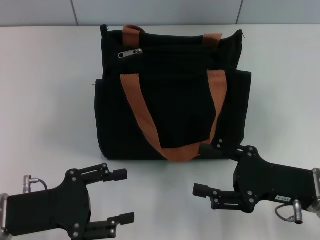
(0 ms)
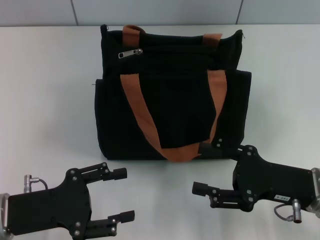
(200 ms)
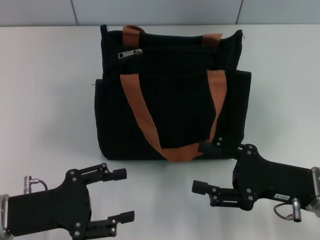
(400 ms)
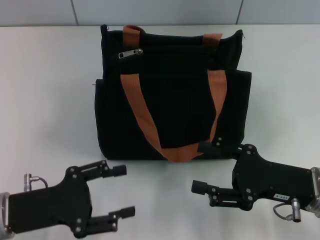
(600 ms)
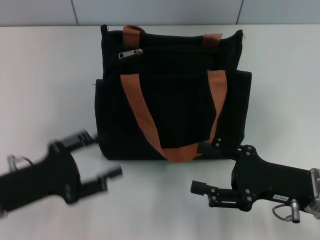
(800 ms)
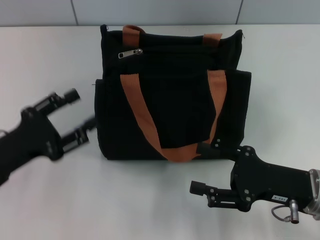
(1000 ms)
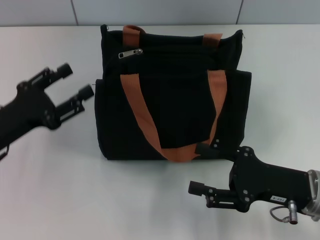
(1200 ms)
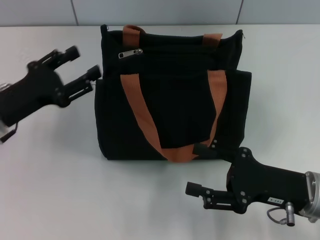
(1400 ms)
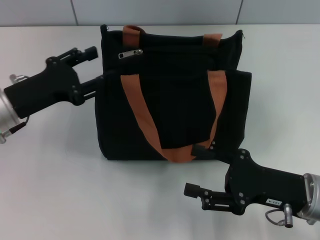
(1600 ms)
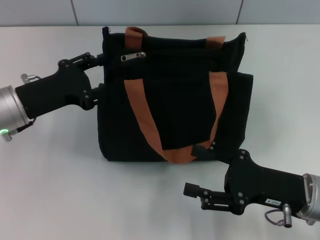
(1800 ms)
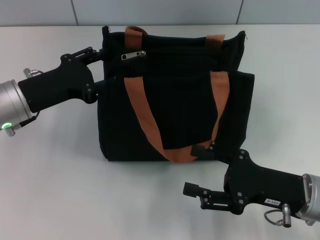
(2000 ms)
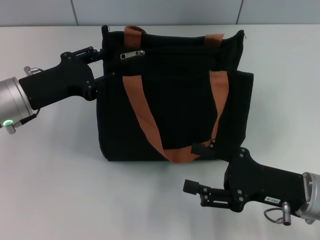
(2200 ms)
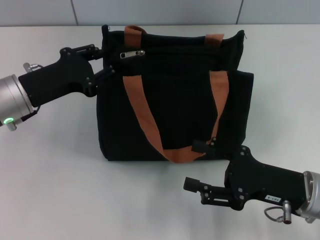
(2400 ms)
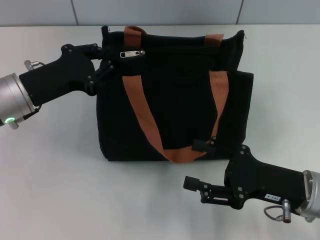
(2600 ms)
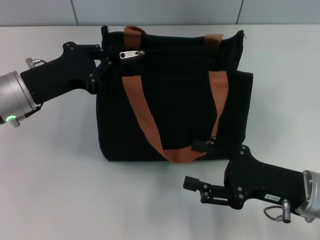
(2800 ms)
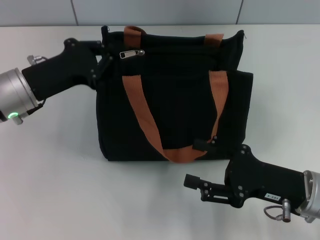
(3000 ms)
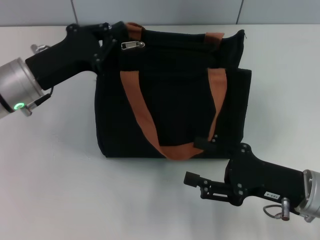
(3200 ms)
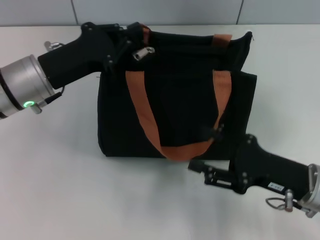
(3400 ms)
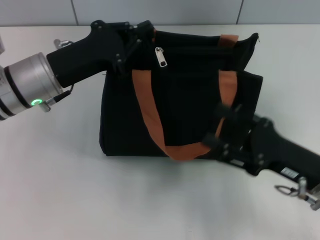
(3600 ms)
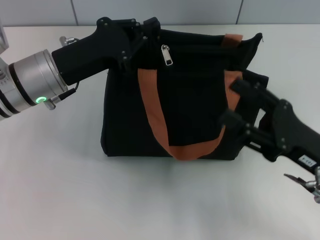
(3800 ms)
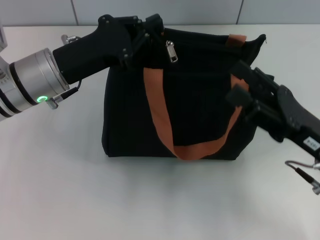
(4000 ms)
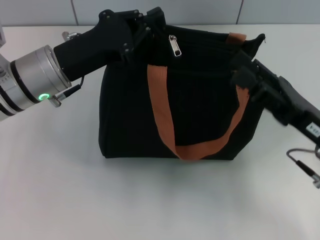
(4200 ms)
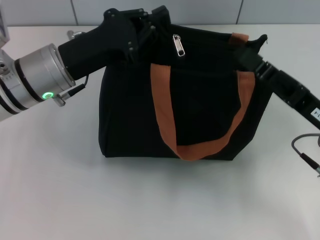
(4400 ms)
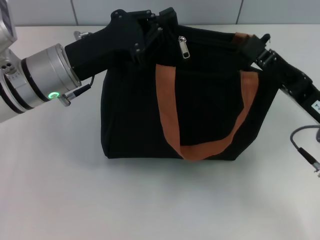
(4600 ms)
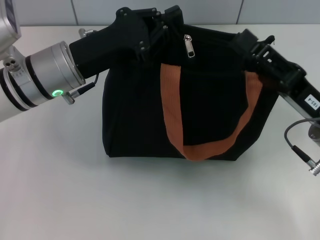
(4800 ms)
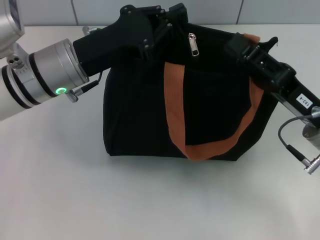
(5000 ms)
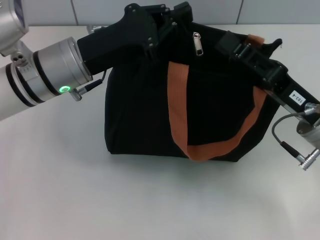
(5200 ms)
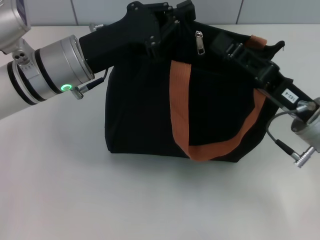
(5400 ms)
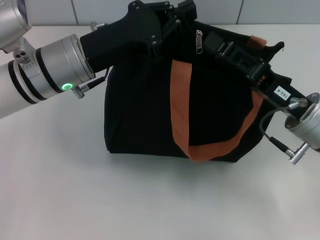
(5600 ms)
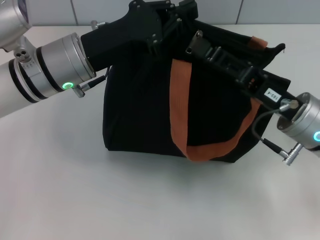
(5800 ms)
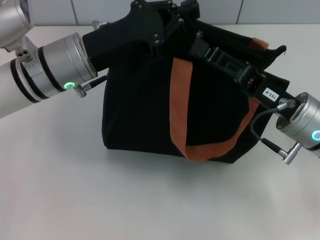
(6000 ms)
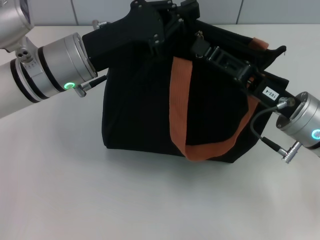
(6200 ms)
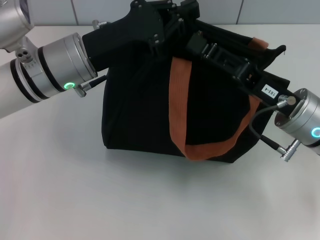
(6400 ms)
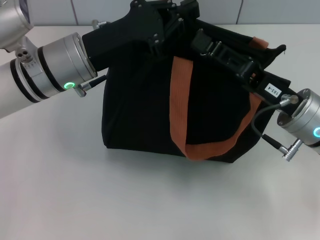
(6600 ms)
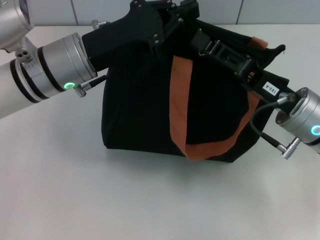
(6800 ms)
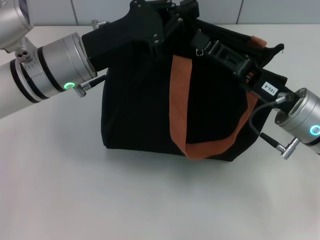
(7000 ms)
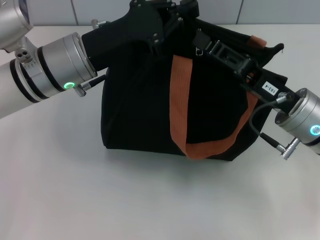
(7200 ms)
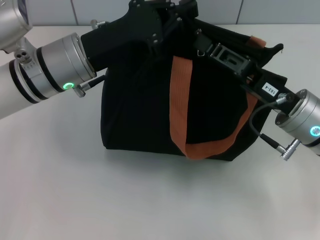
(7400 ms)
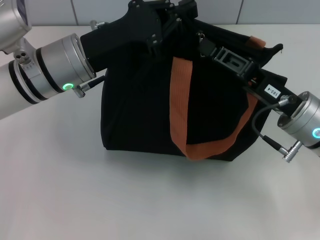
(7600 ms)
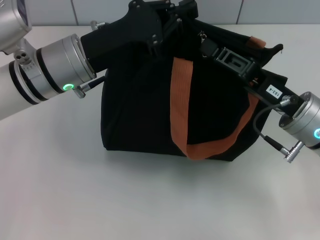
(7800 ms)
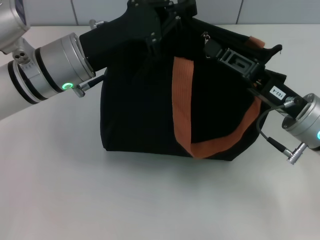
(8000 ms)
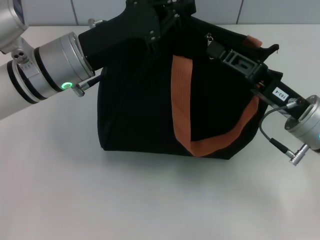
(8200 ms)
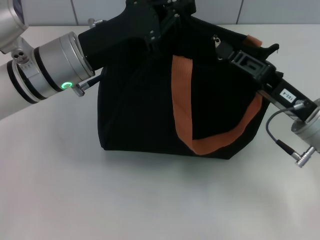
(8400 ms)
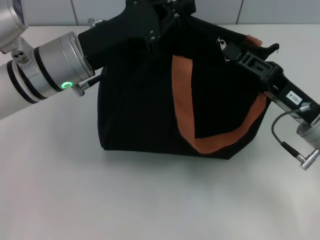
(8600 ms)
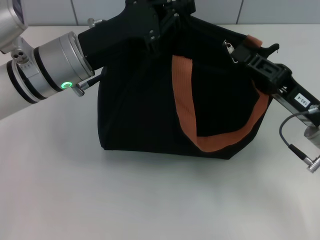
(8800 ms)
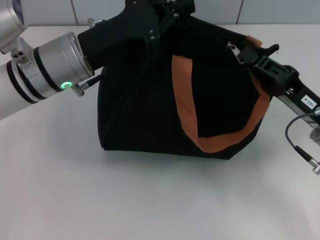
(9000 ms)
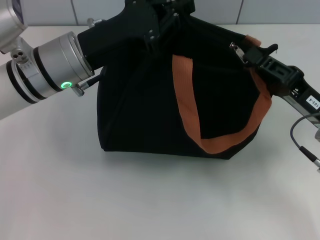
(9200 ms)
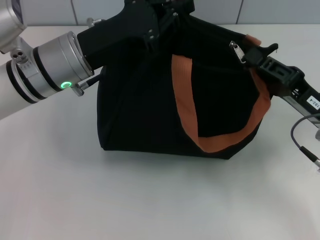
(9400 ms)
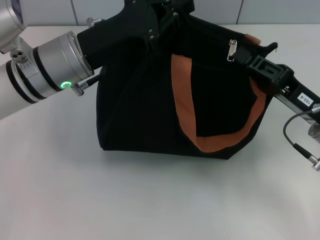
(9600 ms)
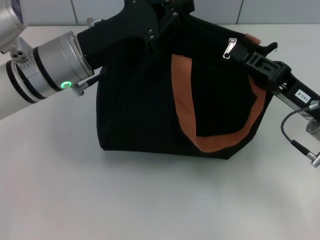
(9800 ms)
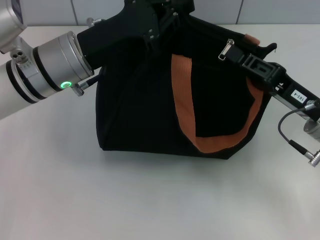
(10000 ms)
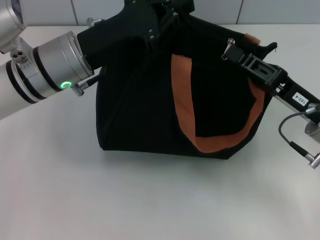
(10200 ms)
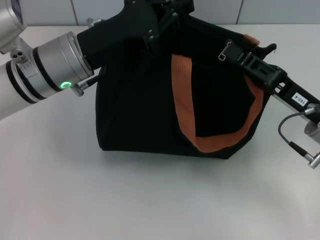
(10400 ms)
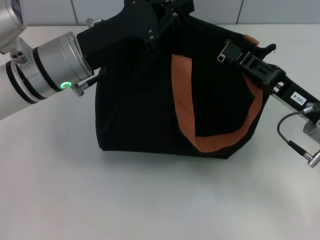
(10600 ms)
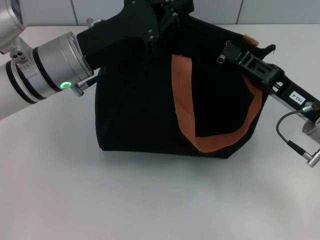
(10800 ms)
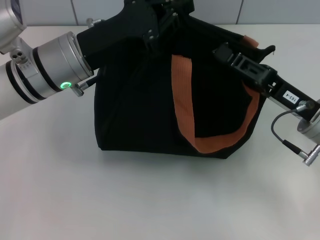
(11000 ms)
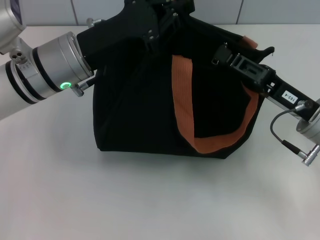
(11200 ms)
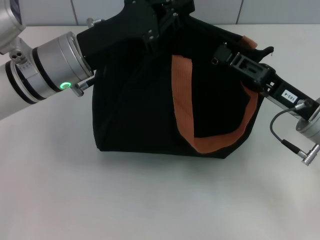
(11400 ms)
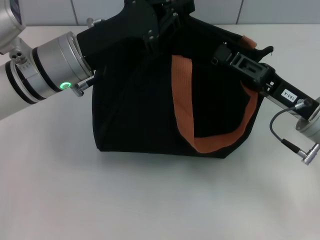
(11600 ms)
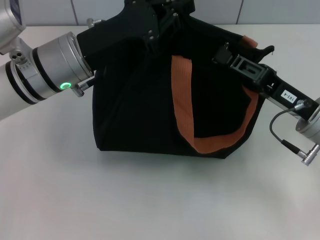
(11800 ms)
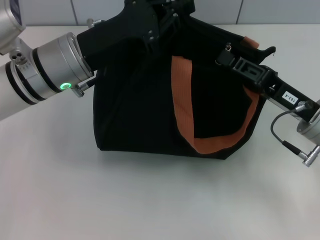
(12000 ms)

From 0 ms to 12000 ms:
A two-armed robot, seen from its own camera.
From 0 ms to 1600 ms: The left gripper moves forward, about 10 cm.
From 1600 ms to 3000 ms: The left gripper closes up.
From 3000 ms to 4400 ms: The left gripper moves to the right, roughly 5 cm, while the right gripper ends up some 5 cm from where it was.
From 4400 ms to 6000 ms: The right gripper shifts by some 5 cm, and closes.
From 6000 ms to 7600 ms: The right gripper closes up.
From 7600 ms to 10400 ms: The grippers make only small movements.
From 10400 ms to 12000 ms: The two grippers keep their place.

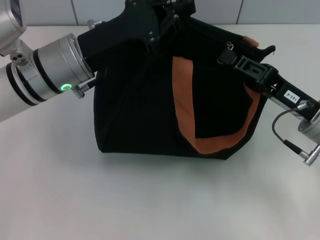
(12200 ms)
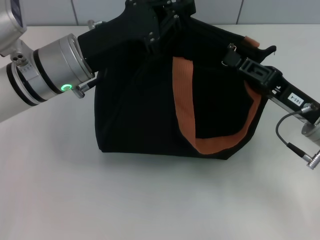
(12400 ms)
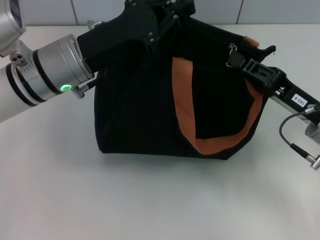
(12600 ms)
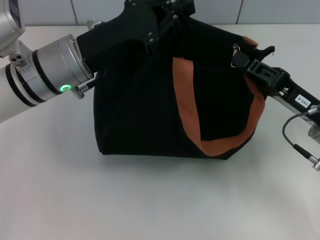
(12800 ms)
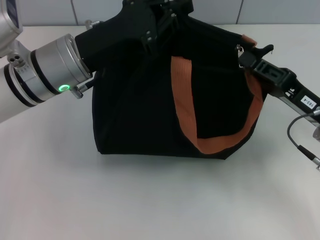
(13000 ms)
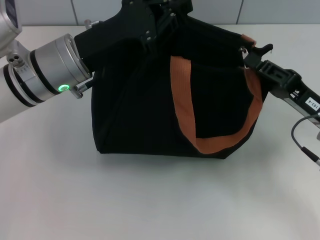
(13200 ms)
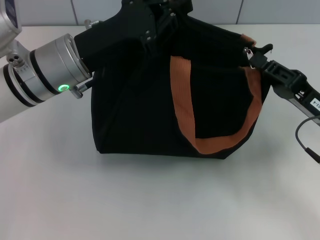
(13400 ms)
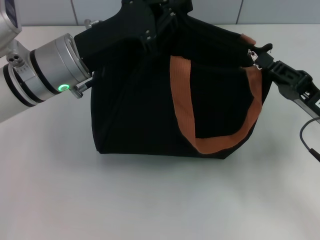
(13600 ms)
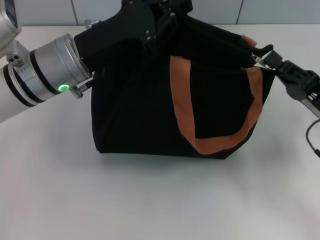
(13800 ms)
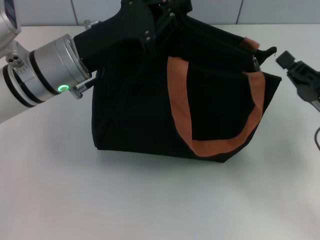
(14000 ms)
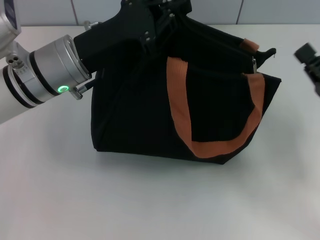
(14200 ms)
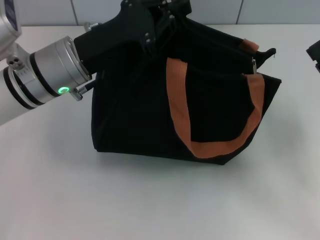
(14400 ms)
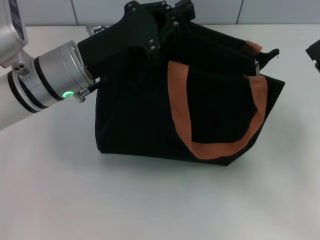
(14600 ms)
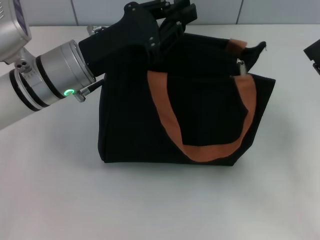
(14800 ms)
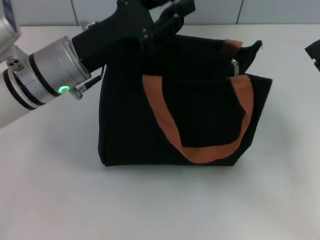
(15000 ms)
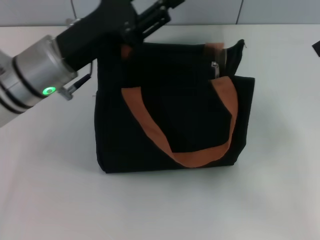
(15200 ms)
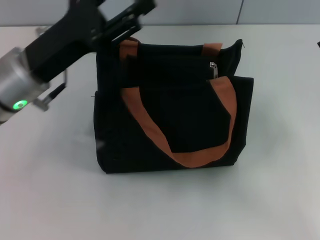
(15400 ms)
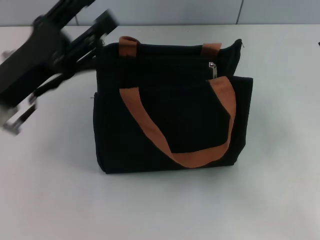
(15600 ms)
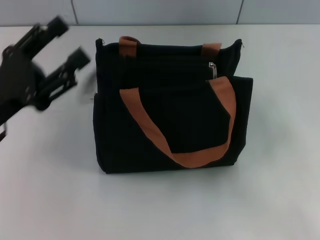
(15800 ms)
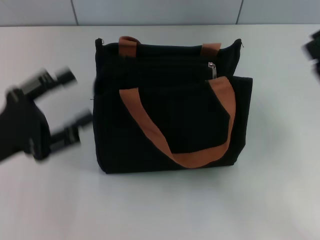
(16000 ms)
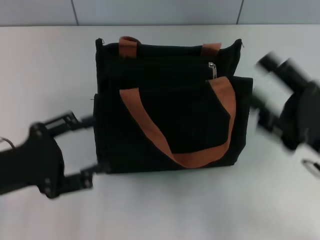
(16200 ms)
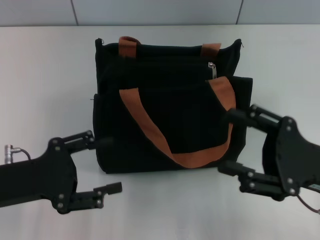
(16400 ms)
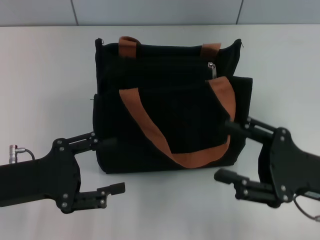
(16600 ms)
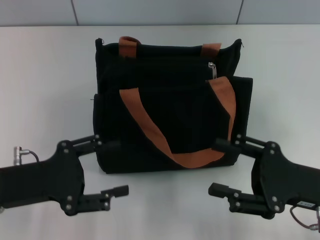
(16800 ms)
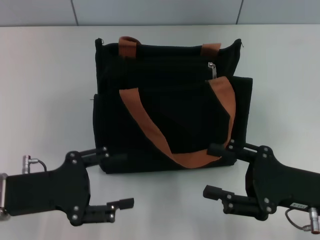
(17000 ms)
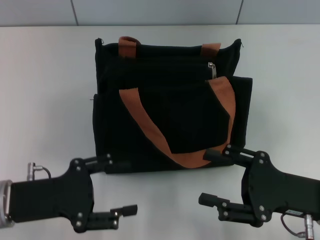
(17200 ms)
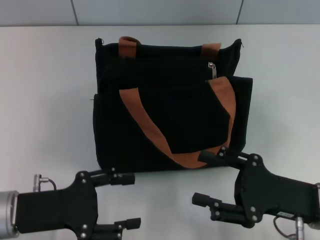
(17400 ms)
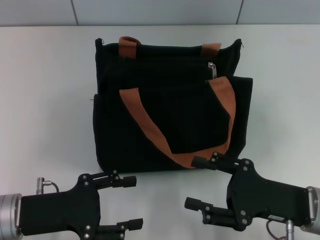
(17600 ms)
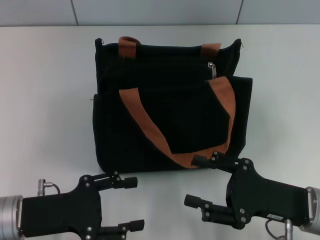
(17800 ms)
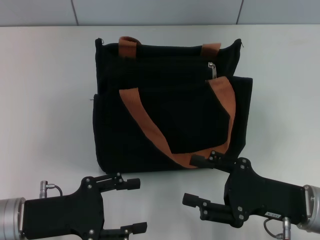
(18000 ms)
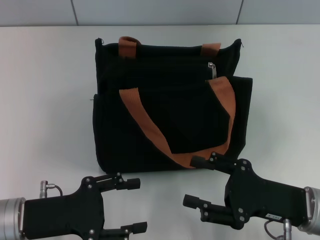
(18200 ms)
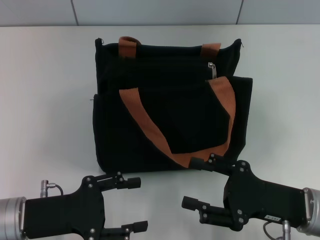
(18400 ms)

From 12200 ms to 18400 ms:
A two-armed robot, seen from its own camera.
Step, from 14000 ms to 15200 ms: Grab the zipper with your left hand.
From 12200 ms to 13800 ms: The right gripper ends up some 5 cm from where it was.
From 13800 ms to 15400 ms: The left gripper changes place by approximately 5 cm, and opens. The right gripper opens.
From 15400 ms to 16800 ms: The left gripper travels backward, to the left and downward by some 10 cm.
